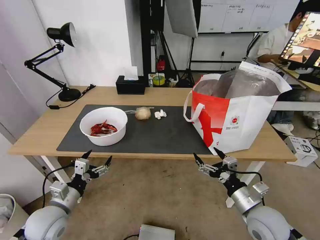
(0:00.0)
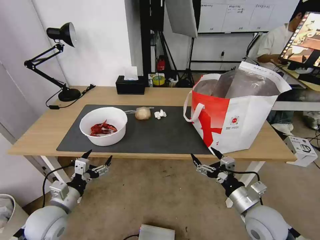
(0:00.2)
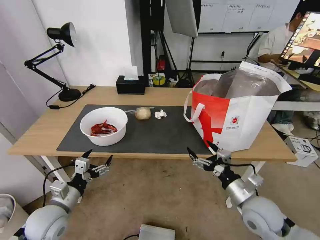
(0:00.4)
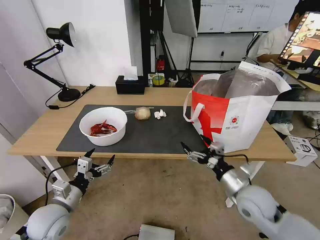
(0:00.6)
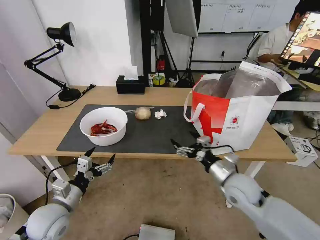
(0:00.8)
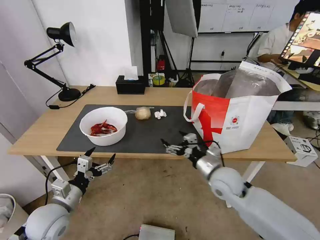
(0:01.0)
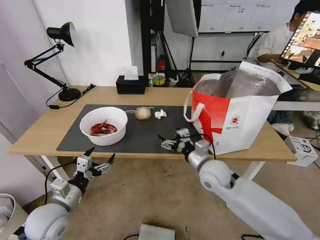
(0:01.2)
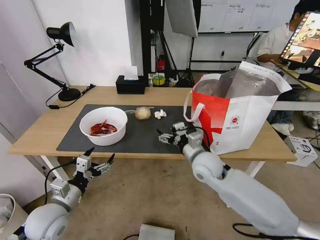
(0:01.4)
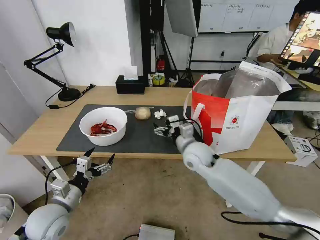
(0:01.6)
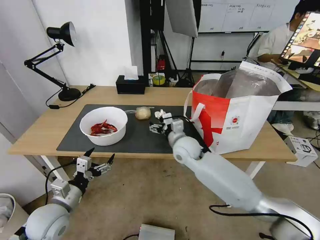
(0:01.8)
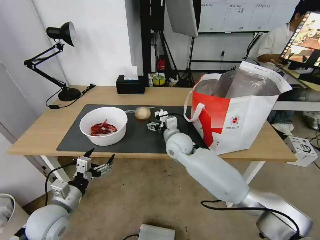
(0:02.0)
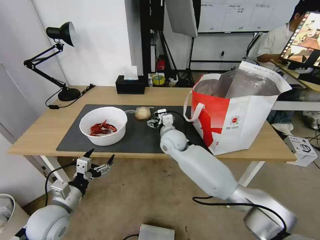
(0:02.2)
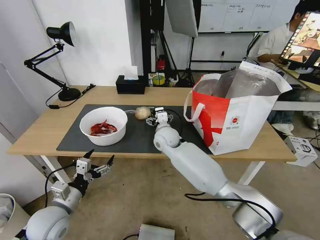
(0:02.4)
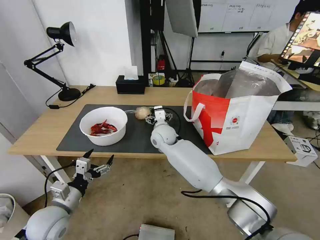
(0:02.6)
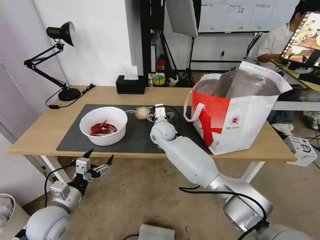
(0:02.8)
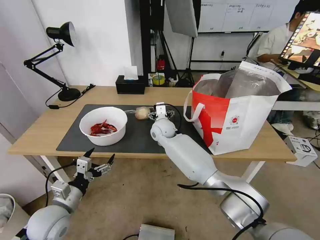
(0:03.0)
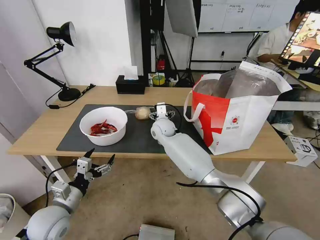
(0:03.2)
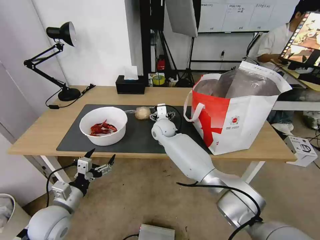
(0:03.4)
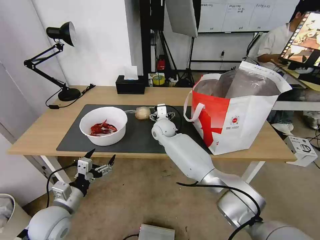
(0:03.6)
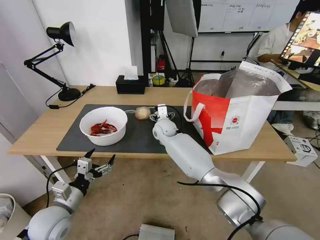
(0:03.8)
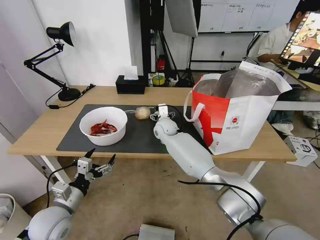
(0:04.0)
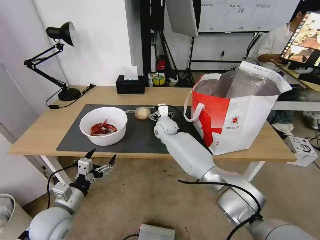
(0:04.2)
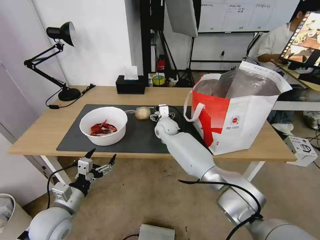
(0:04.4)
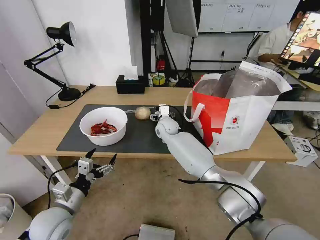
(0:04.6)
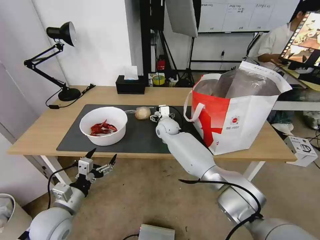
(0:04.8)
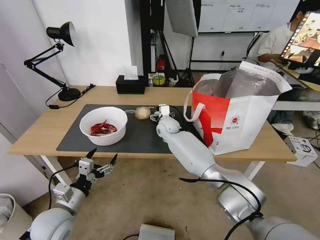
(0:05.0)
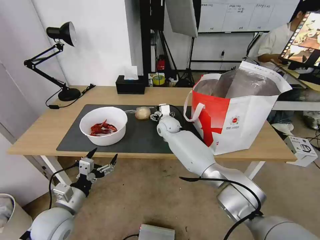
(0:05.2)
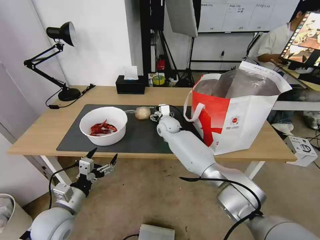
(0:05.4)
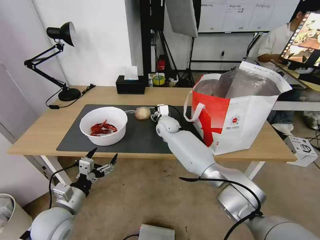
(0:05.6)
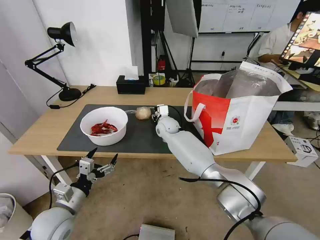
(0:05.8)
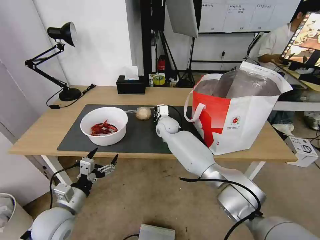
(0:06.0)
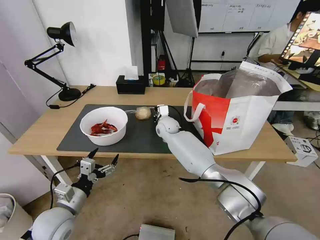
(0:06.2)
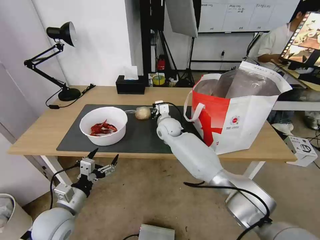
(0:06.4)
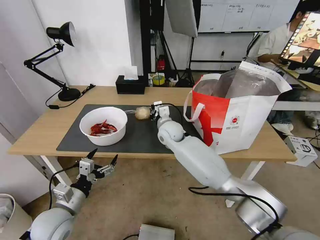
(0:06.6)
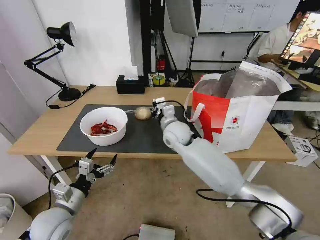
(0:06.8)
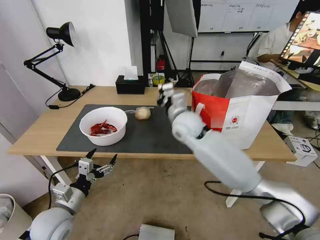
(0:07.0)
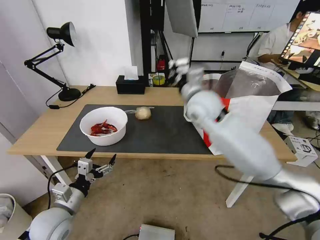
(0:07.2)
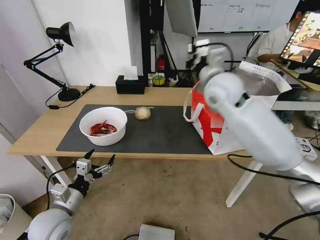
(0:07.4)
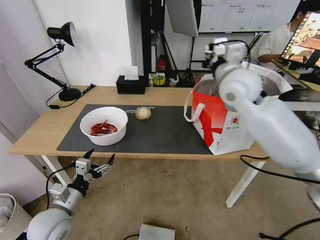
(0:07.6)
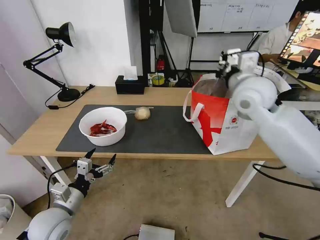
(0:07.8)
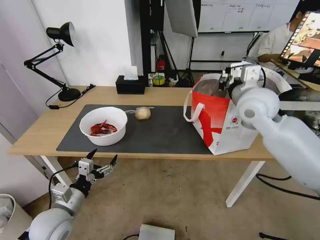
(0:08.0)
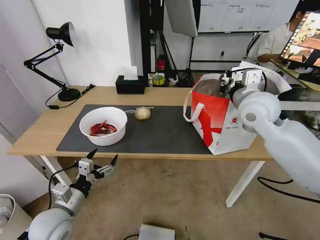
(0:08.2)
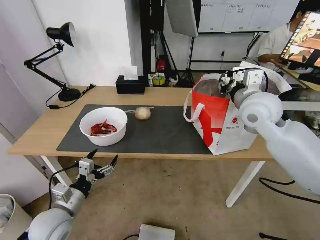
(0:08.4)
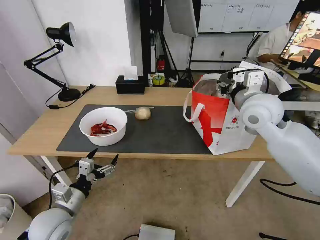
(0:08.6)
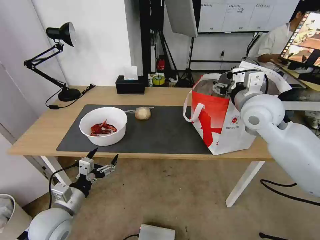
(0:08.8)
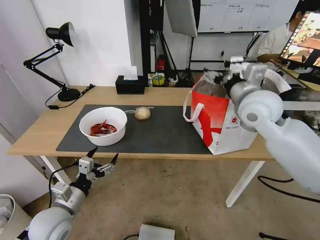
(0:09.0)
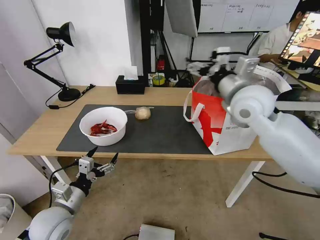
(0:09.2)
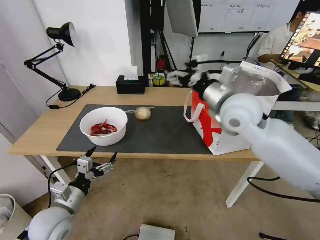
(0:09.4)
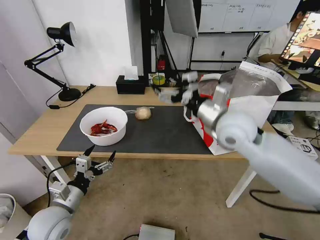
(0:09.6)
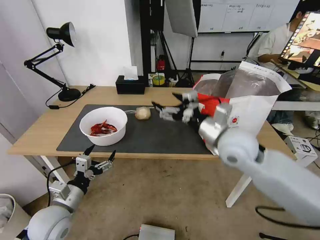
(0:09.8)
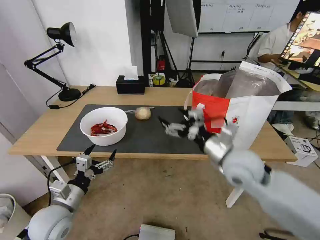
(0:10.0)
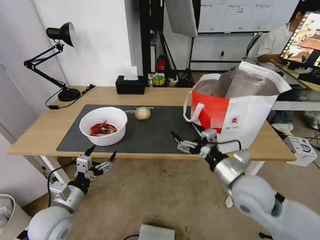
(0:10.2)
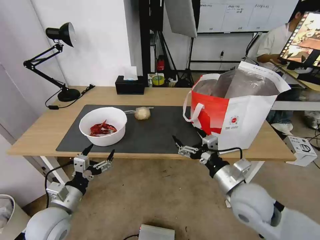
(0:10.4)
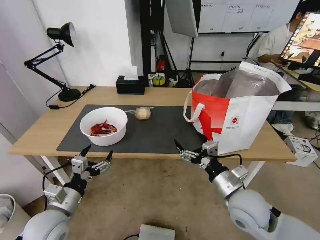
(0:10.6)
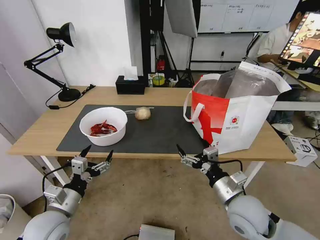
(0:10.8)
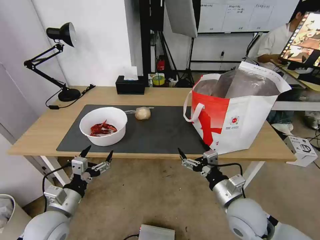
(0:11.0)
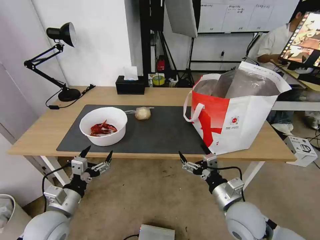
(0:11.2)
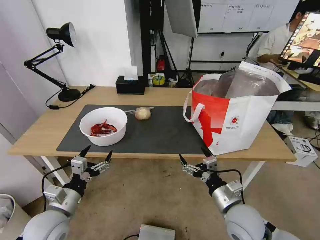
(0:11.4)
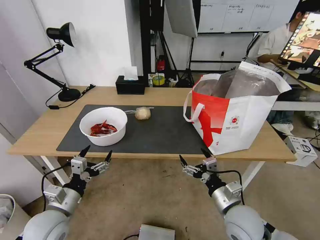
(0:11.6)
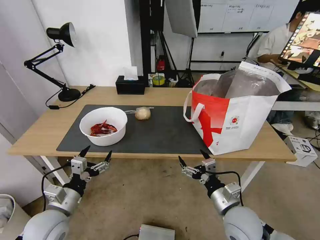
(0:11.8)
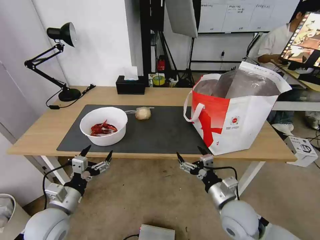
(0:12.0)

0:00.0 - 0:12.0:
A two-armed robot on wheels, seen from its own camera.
Task of the whole recording: Pick up the trash from the table and place it into the takeout bag.
0:00.0 - 0:01.6: The right gripper travels forward and to the left by about 25 cm.
0:01.6 - 0:03.0: The right gripper shifts approximately 20 cm forward and to the left.
0:03.0 - 0:04.4: The grippers make only small movements.
0:04.4 - 0:06.0: The right gripper closes its fingers.
0:06.0 - 0:07.6: The right gripper travels upward, to the right and backward by about 35 cm.
0:07.6 - 0:09.0: The right gripper ends up about 5 cm from where it was, and opens up.
0:09.0 - 0:10.4: The right gripper heads downward and backward, covering about 25 cm.
0:10.4 - 0:12.0: The right gripper goes some 10 cm downward.

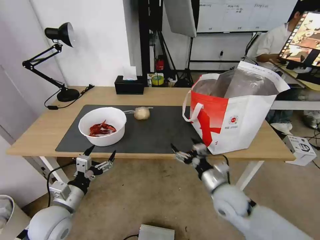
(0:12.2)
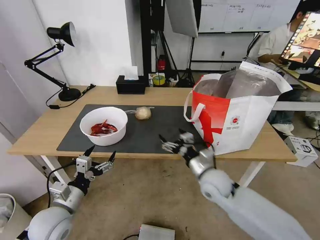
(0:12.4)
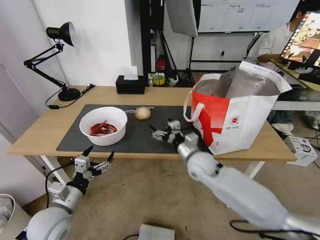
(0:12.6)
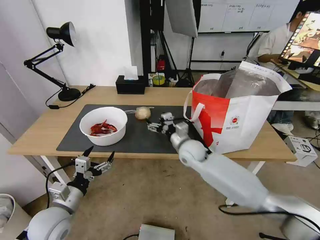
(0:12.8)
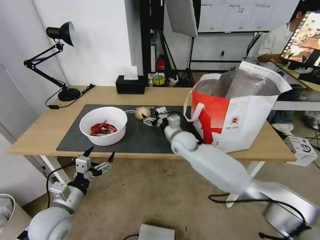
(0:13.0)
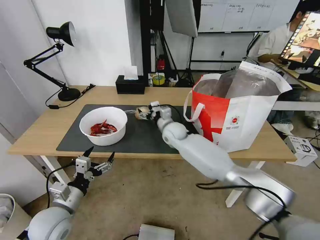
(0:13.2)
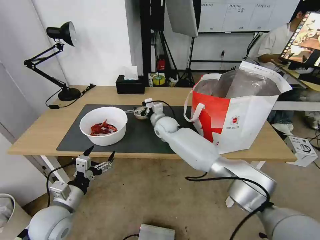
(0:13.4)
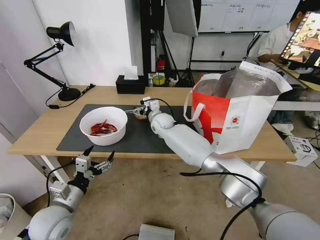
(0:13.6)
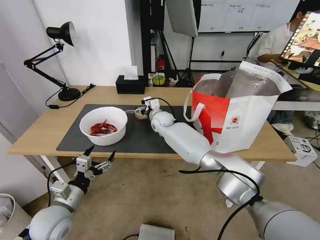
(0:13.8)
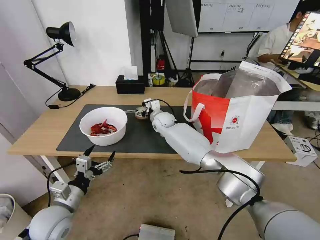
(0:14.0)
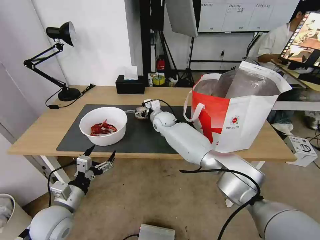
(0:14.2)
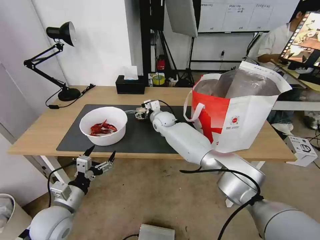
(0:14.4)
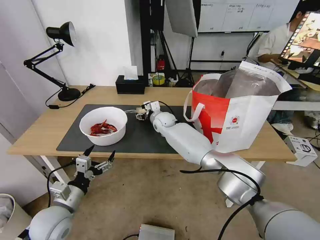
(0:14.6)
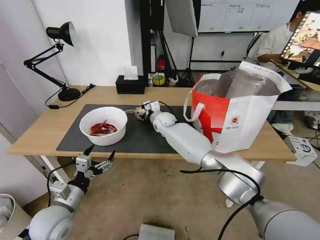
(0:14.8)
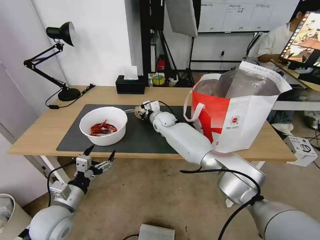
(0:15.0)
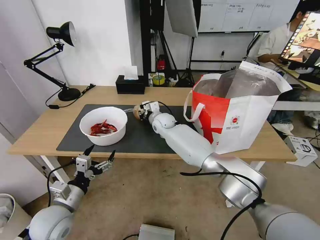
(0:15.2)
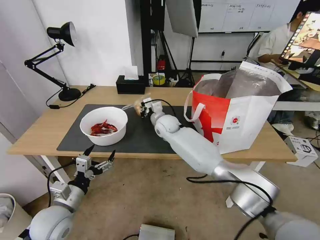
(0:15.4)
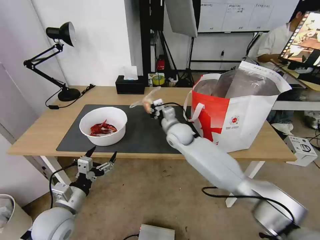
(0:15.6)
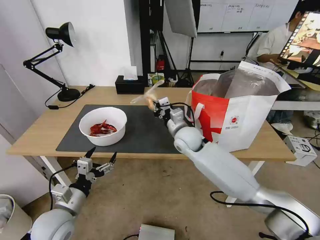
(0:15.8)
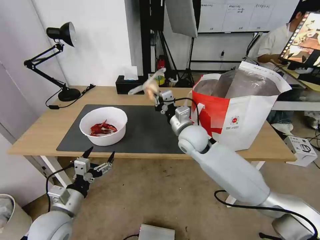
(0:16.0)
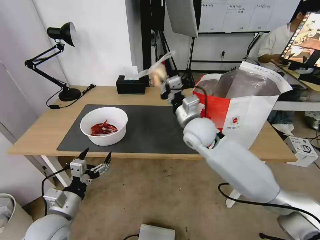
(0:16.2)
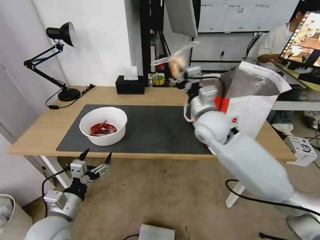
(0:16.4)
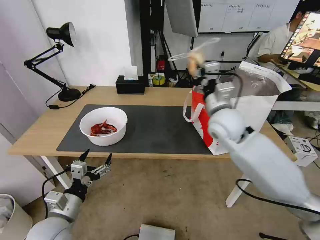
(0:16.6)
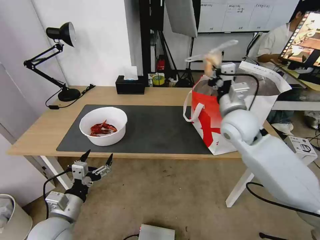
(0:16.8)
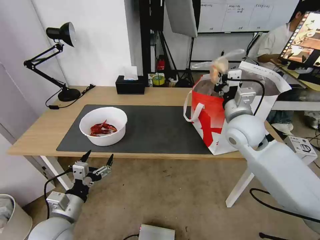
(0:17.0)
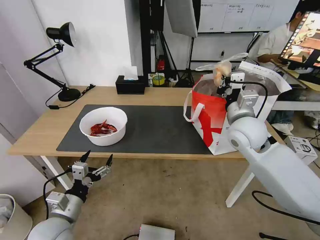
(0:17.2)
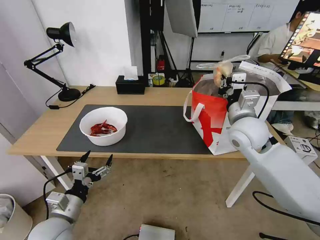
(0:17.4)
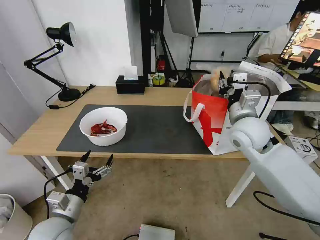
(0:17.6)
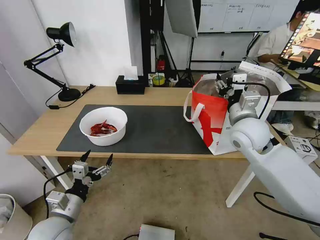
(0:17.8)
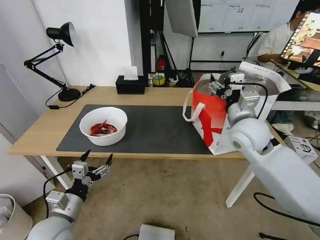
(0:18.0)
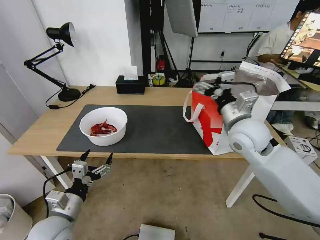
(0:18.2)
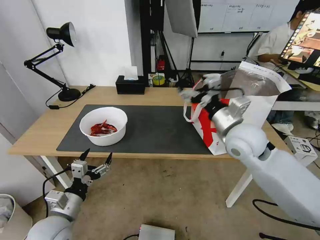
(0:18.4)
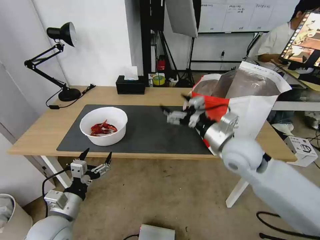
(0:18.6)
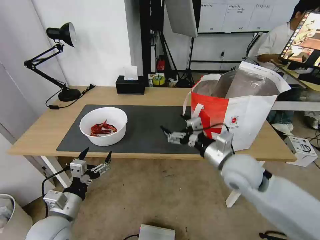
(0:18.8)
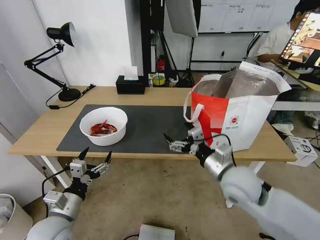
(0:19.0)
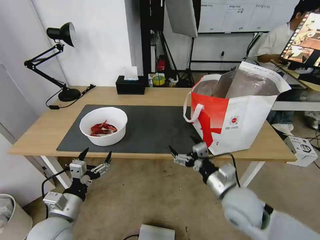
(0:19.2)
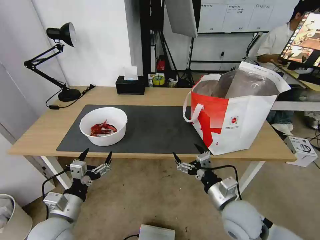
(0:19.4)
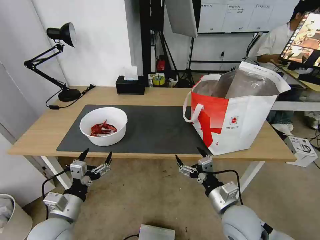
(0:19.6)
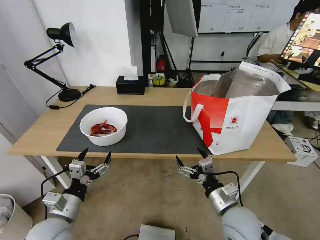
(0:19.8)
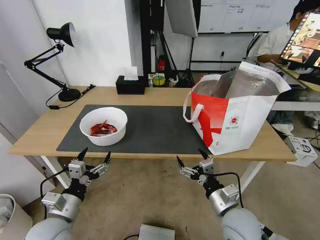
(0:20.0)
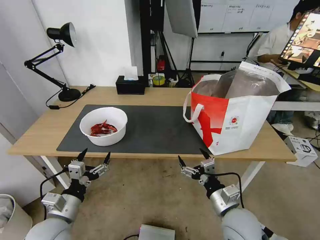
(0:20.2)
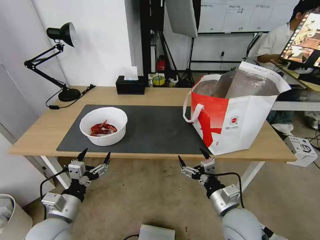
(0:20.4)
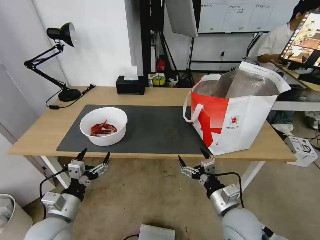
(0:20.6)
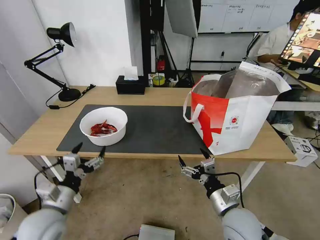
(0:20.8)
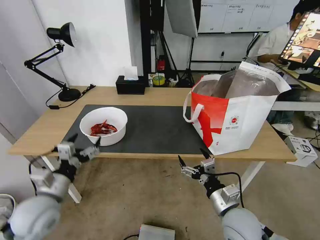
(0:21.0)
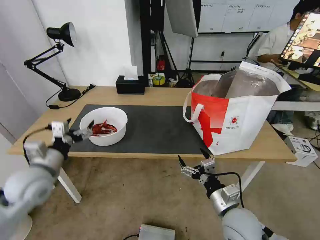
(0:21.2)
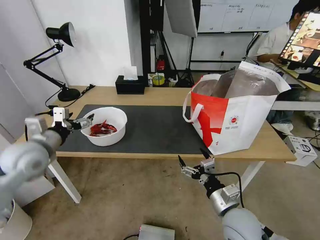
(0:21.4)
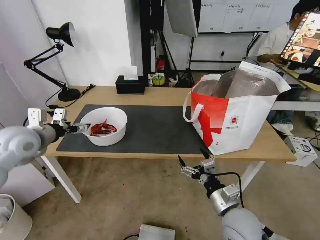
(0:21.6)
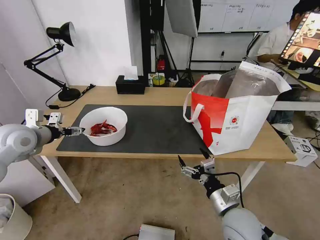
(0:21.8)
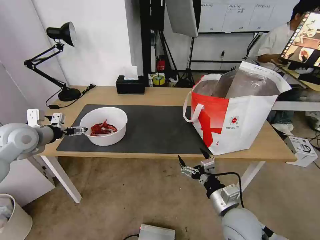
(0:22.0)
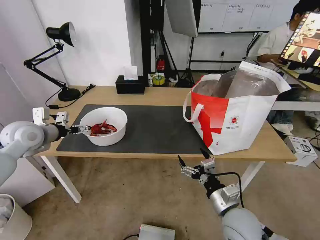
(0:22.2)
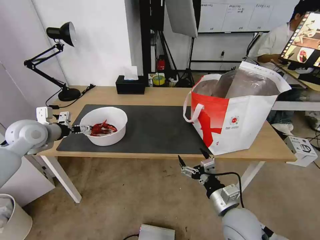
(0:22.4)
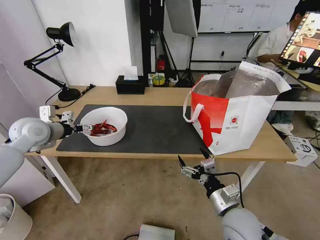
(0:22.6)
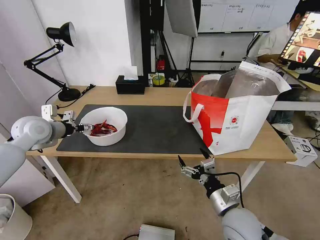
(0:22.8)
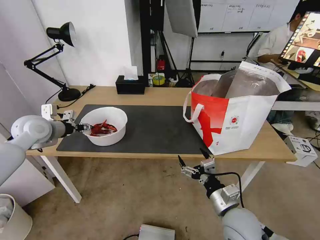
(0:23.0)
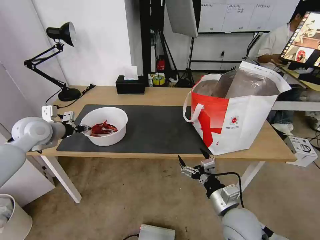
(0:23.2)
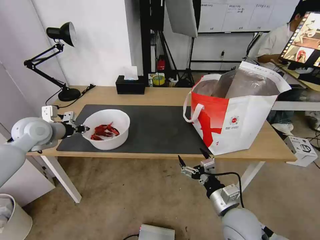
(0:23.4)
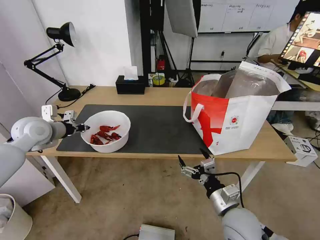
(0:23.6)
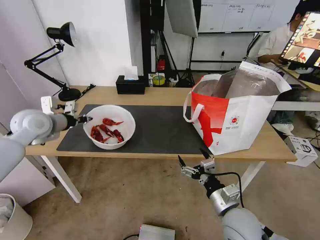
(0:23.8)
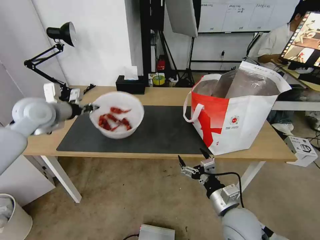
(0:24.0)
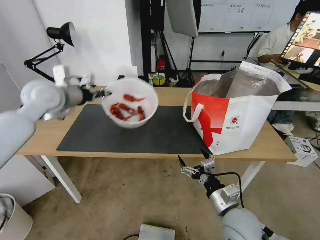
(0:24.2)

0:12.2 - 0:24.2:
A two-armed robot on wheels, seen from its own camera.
Task of the whole recording: Pick up the trash from the table and place it into the takeout bag.
0:12.2 - 0:13.8: The right gripper is displaced forward and to the left by roughly 40 cm.
0:13.8 - 0:15.2: The right gripper closes.
0:15.2 - 0:16.6: The right gripper goes approximately 30 cm to the right, backward and upward.
0:16.6 - 0:18.2: The right gripper moves about 5 cm, and opens up.
0:18.2 - 0:19.8: The right gripper goes some 25 cm downward and backward.
0:19.8 - 0:21.2: The left gripper moves forward, upward and to the left, some 15 cm.
0:21.2 - 0:22.6: The left gripper moves forward and to the left, roughly 15 cm.
0:22.6 - 0:24.2: The left gripper moves upward and to the right, approximately 15 cm, and closes.
